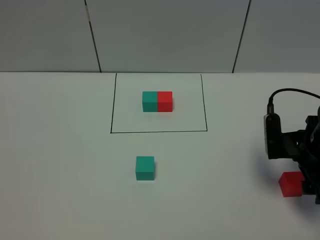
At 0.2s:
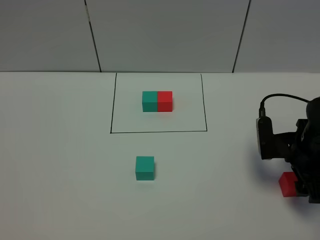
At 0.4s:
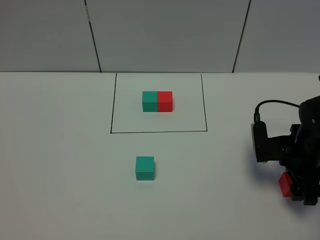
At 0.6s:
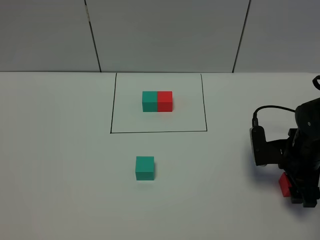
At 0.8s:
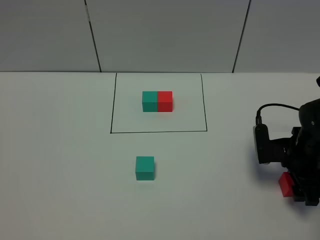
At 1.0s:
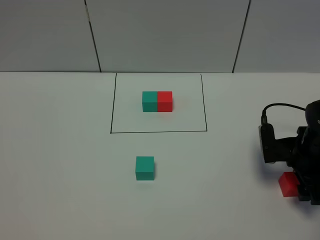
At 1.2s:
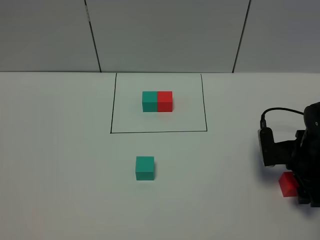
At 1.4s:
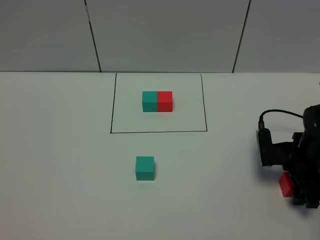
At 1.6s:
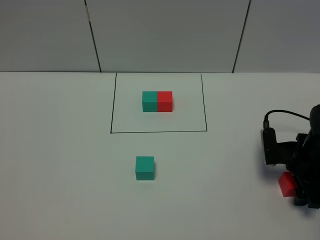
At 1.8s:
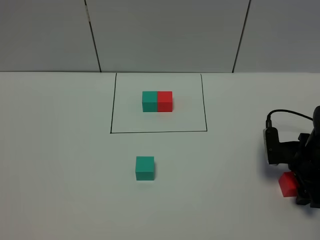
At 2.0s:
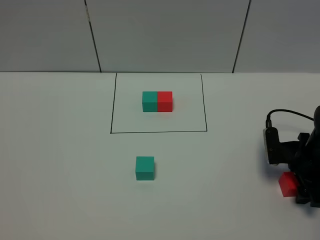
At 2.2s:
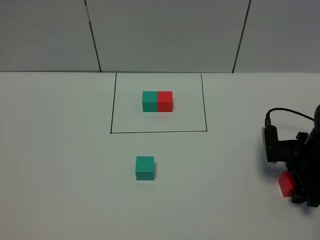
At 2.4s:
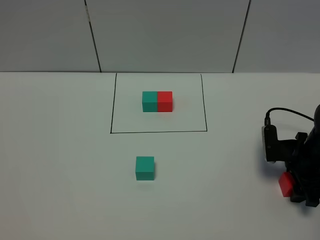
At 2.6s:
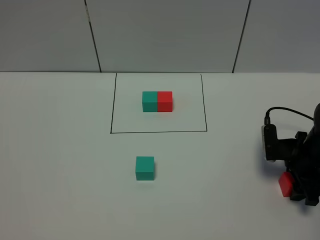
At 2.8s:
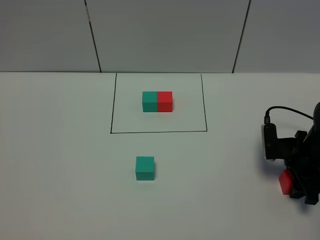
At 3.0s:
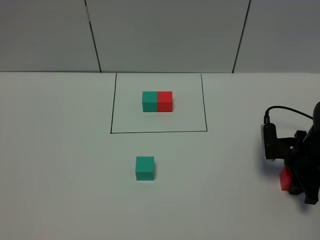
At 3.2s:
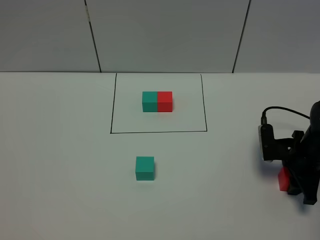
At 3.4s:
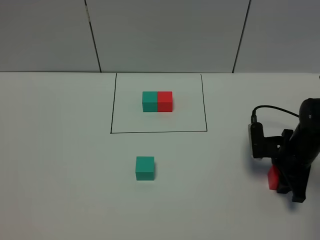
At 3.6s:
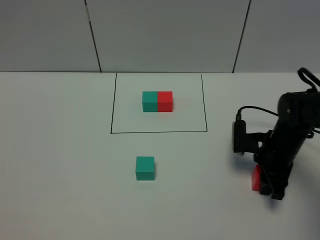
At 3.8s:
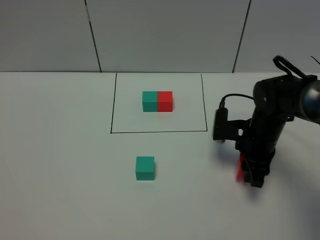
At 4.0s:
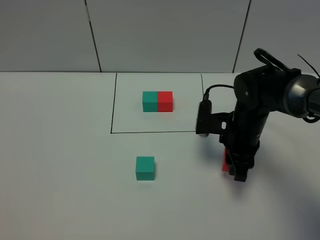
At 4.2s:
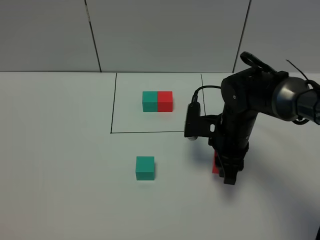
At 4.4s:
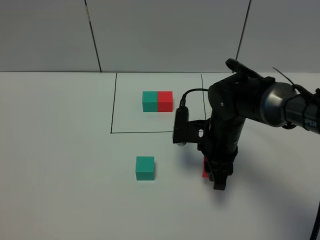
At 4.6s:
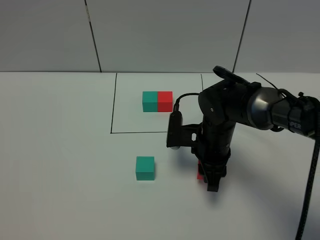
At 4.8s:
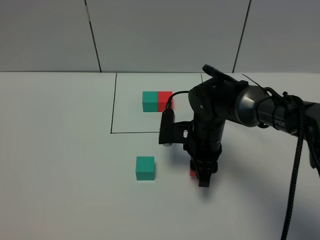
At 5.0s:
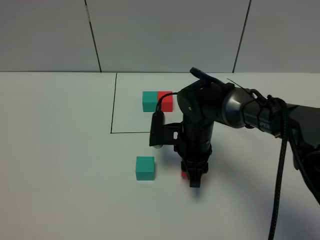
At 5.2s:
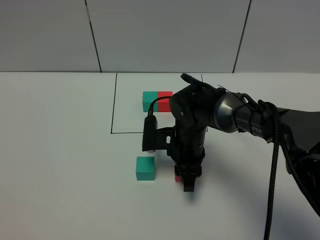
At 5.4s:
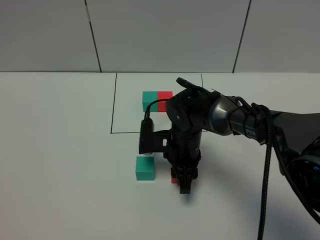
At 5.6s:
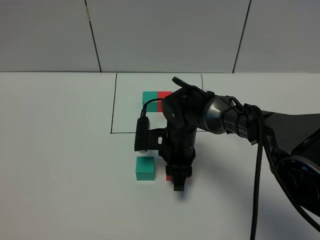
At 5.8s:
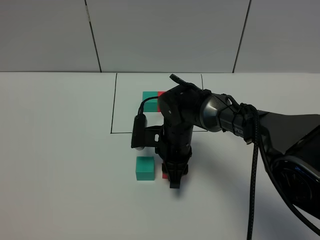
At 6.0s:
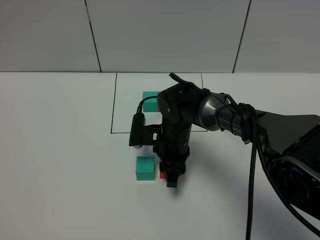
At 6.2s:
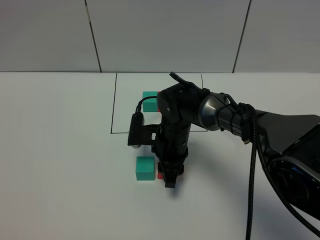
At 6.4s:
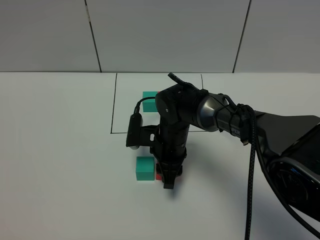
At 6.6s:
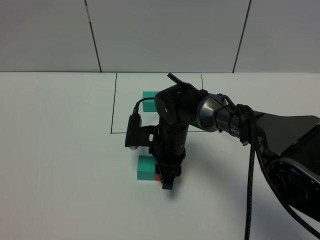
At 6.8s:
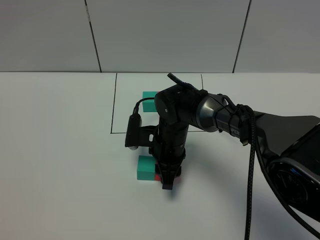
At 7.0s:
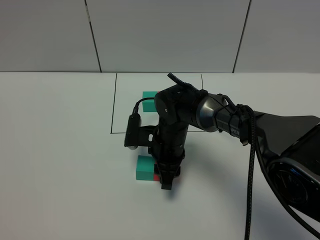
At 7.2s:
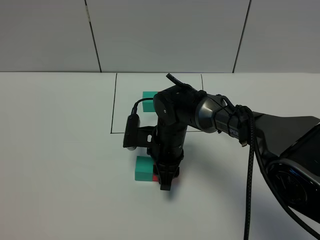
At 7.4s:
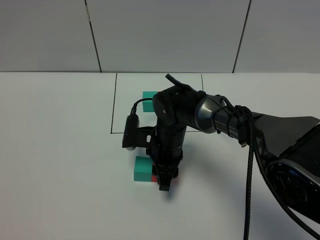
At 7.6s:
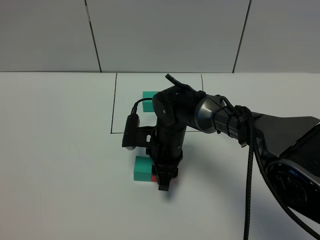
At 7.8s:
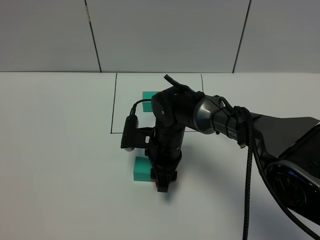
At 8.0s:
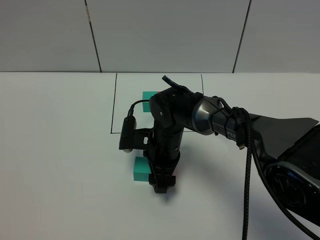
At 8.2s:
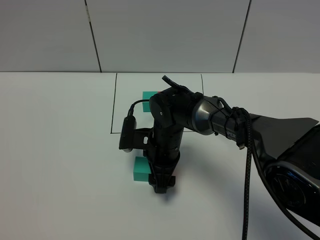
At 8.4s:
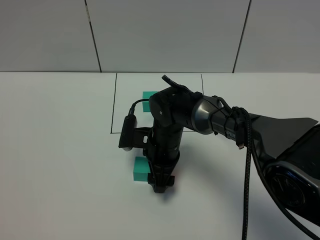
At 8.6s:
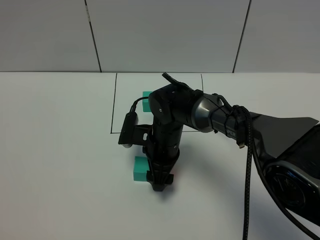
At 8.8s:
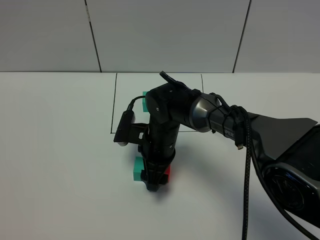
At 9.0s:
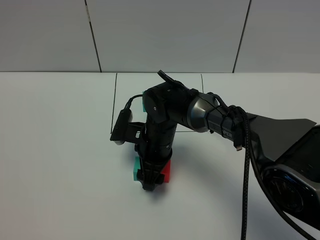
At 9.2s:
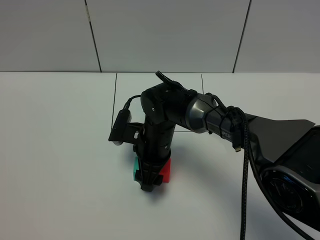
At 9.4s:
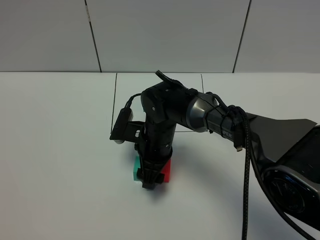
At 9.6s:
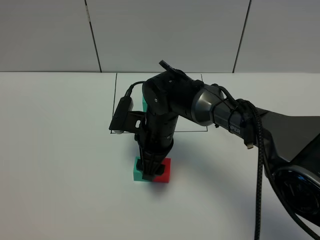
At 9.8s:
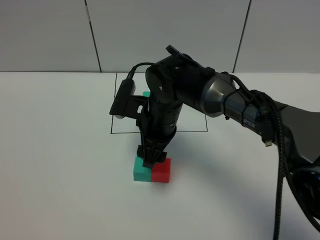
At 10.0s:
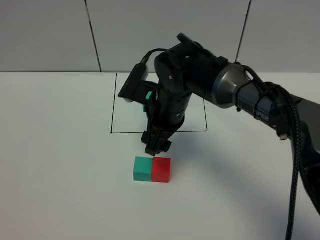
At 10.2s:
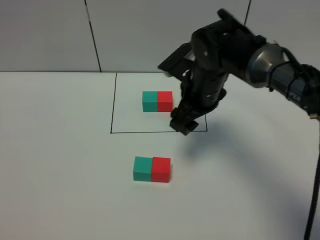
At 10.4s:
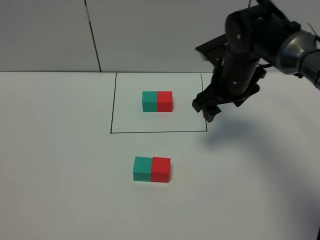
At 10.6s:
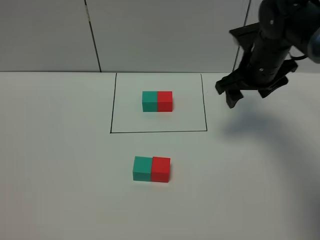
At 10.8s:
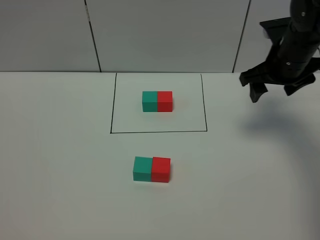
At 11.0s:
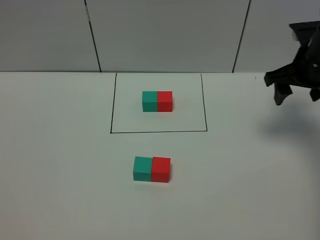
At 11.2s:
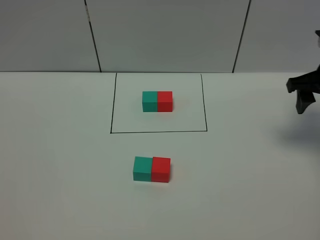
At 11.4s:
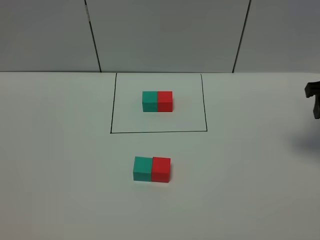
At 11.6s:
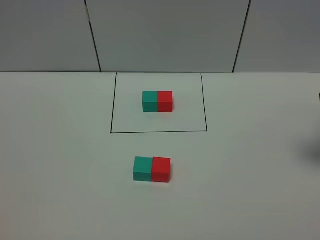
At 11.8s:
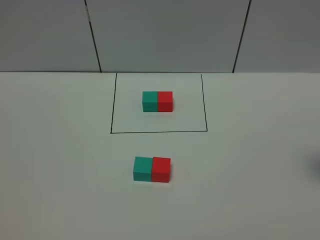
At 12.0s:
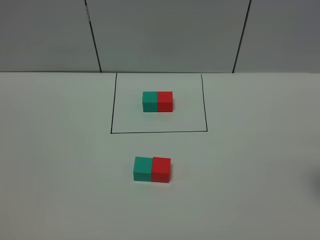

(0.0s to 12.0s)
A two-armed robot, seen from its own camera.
Task of the whole recording: According to the building block template in front, assemble the scattered blocks together.
Step, 0.0s - 8.4s: Put the red cube on the right of the green cube.
0.0s - 1.6s: The right gripper goes some 5 cm downward.
1.6s - 3.0s: The right gripper closes its fingers.
3.0s - 4.4s: The right gripper goes about 20 cm to the left.
4.4s - 6.0s: The right gripper goes approximately 10 cm to the left.
6.0s - 7.6s: Both grippers stay about where they are.
7.6s - 9.0s: The right gripper opens.
9.0s - 10.4s: The right gripper moves to the right and upward, approximately 20 cm.
10.4s - 12.0s: The right gripper goes roughly 25 cm to the right and backward.

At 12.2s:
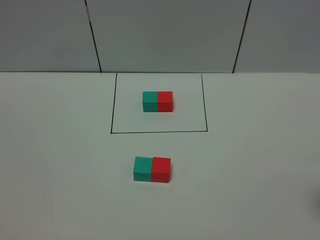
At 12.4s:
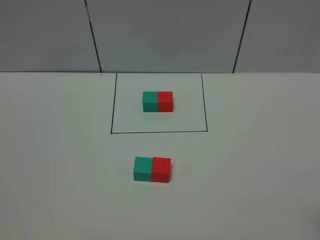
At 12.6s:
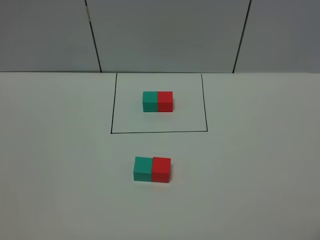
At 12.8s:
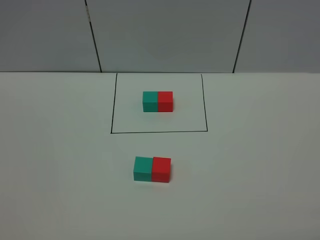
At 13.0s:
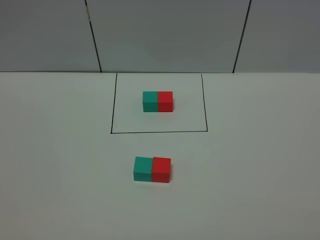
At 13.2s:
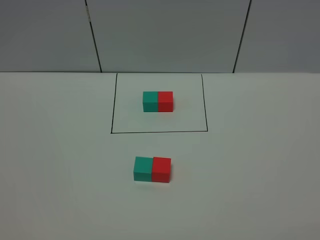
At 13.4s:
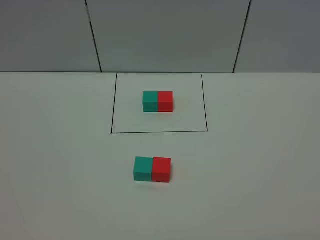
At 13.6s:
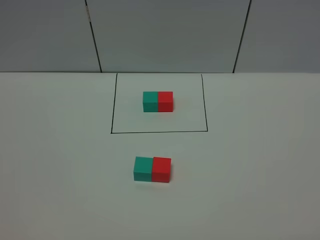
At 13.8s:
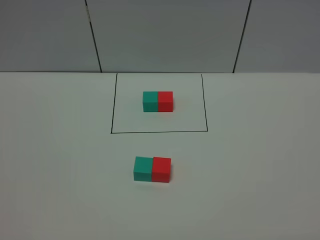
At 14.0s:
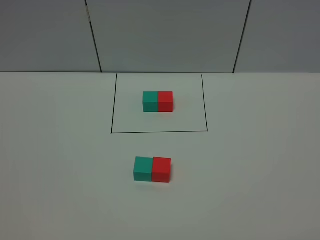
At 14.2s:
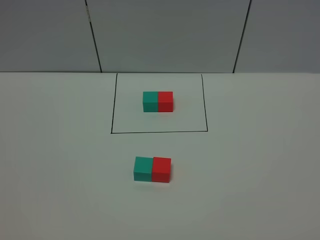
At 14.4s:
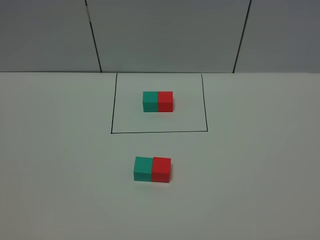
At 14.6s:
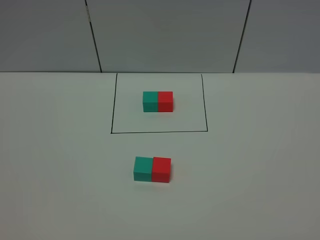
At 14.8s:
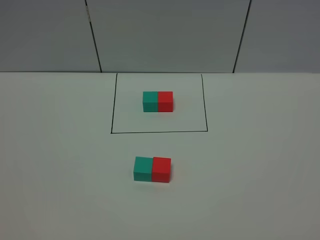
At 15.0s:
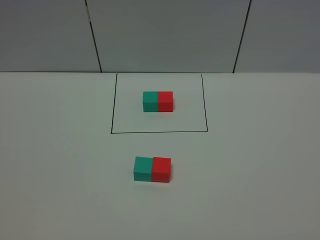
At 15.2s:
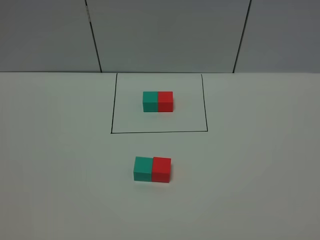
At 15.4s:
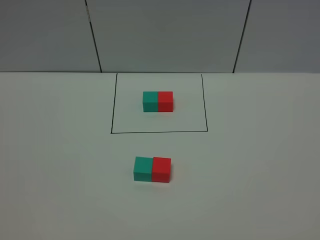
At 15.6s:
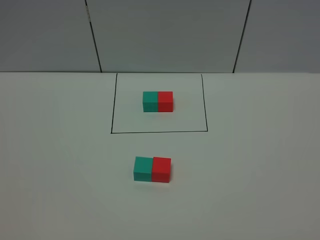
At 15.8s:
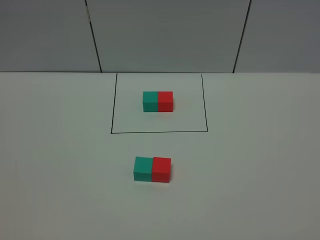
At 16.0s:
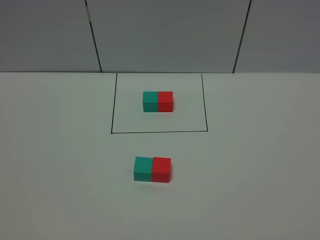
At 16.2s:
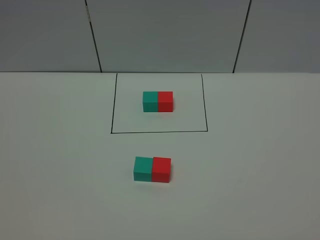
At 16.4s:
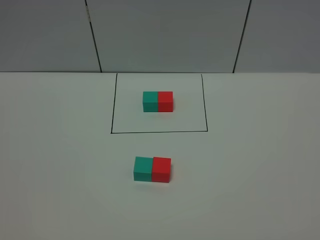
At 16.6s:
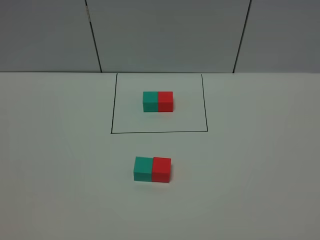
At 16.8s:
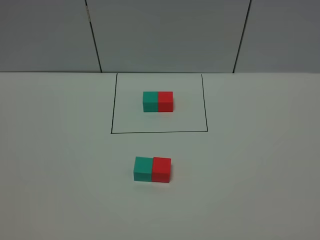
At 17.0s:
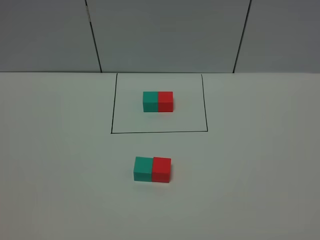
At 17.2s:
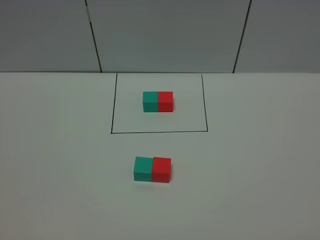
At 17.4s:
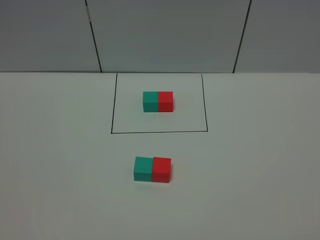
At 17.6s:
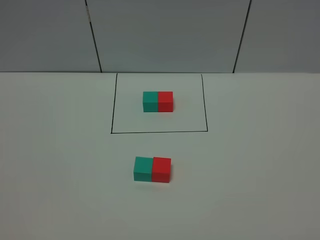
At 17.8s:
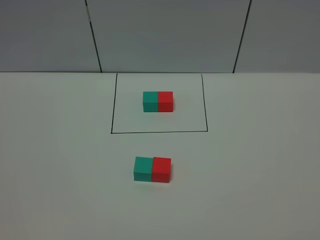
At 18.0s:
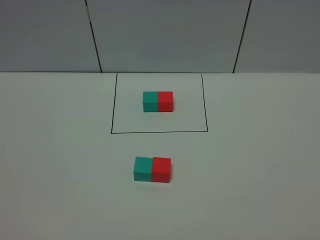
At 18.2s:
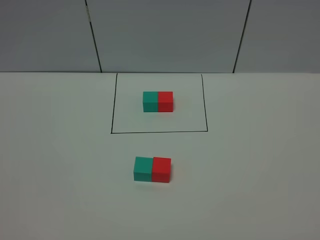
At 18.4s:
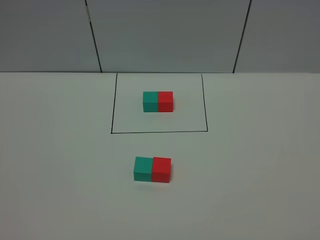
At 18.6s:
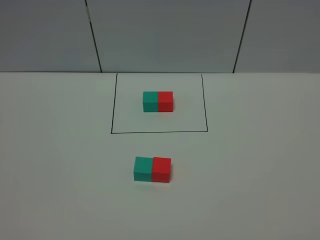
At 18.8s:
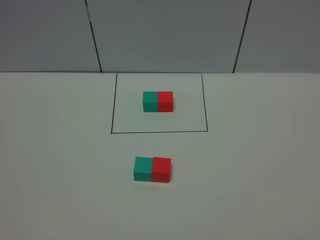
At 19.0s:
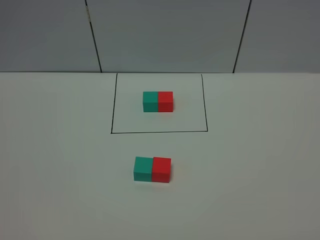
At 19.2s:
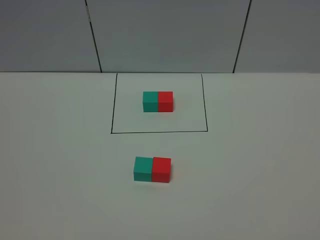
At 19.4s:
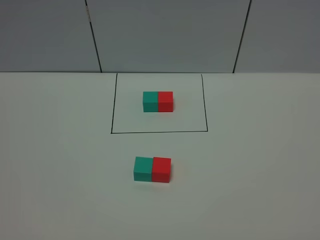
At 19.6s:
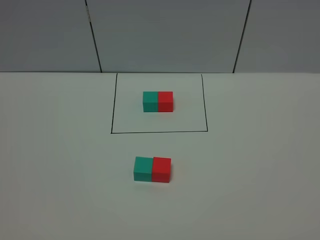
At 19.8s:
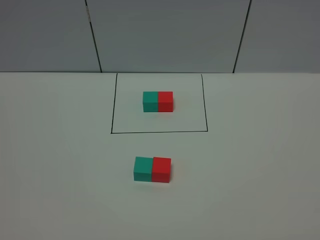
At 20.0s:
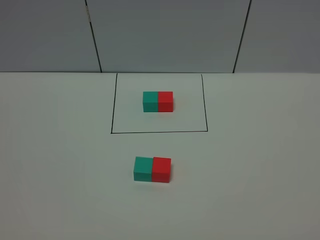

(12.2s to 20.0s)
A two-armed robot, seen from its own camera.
Task of the whole recording: According to the building block template in front, assemble the scattered blocks together.
15.4s - 20.0s: The two grippers keep their place.

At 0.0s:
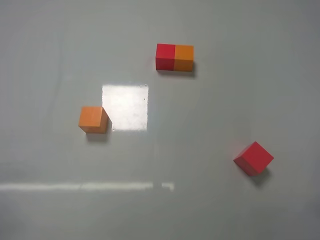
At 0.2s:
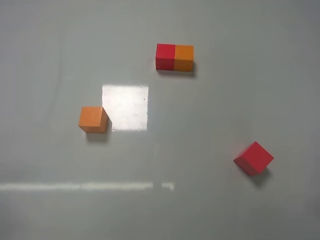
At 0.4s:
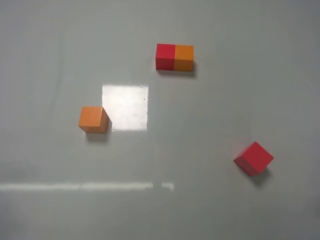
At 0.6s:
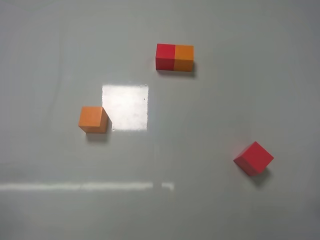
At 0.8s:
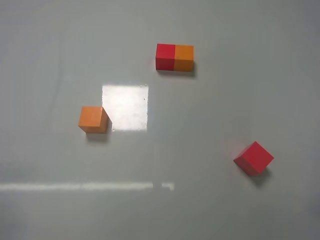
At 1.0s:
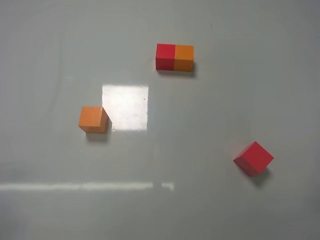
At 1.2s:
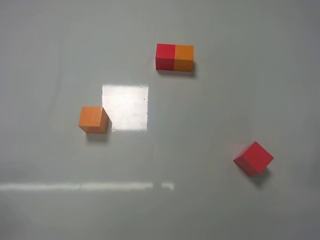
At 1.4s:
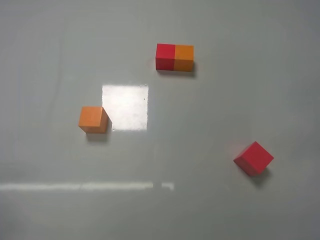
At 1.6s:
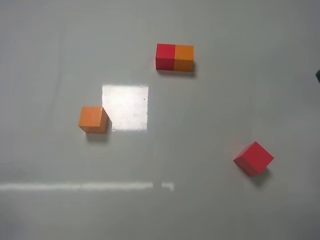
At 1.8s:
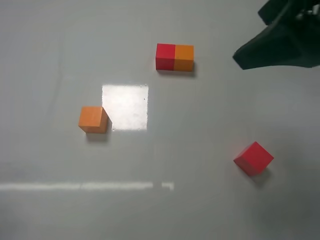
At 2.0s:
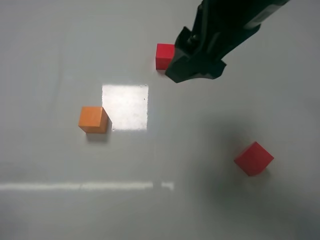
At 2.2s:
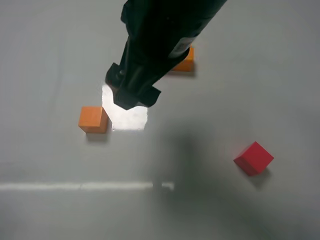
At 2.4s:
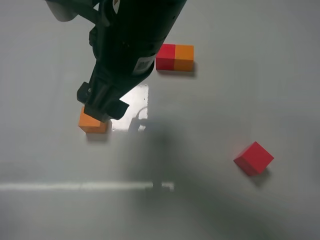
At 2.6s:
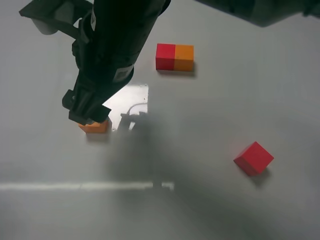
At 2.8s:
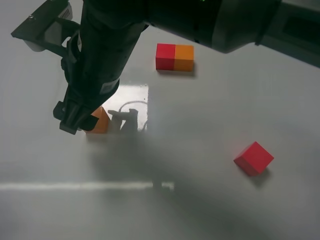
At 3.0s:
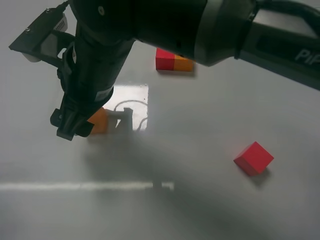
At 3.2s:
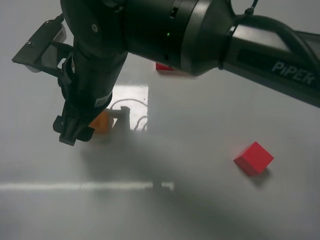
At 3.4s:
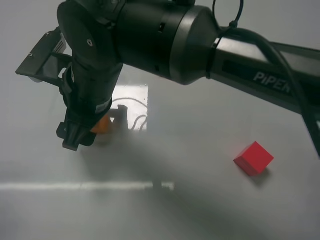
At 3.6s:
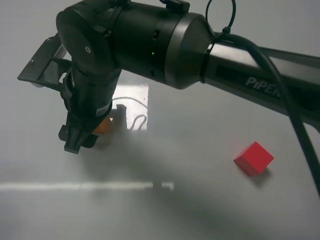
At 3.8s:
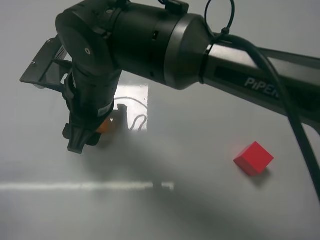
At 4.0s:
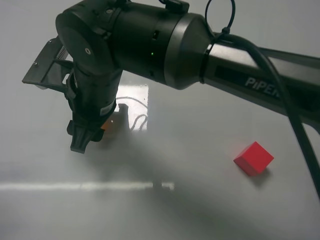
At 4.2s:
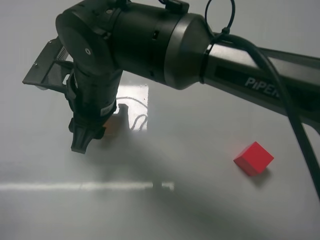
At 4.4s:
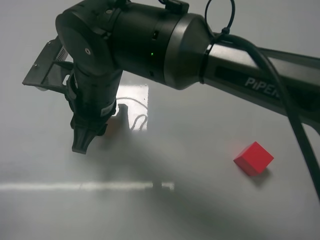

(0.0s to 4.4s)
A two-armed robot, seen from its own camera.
Task of the whole recording: According to the building block template in front, assemble the scattered blocks together.
1.4s - 3.0s: The right gripper travels to the left and forward by roughly 40 cm.
3.0s - 4.4s: The right gripper closes.
